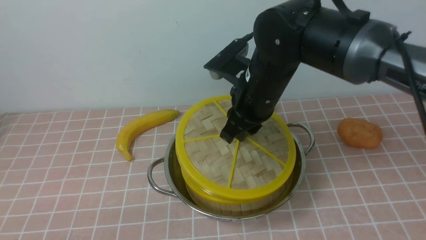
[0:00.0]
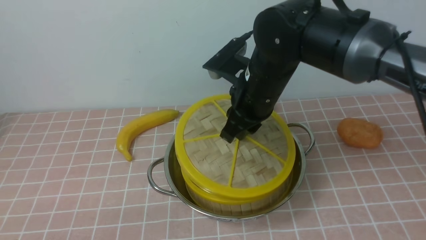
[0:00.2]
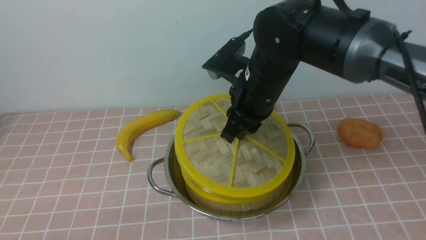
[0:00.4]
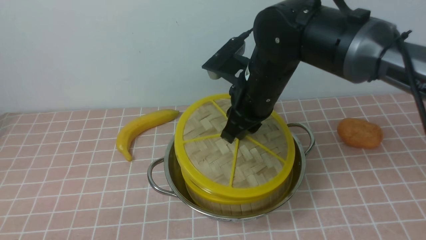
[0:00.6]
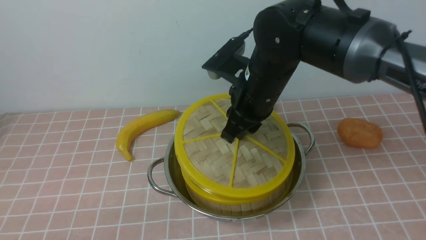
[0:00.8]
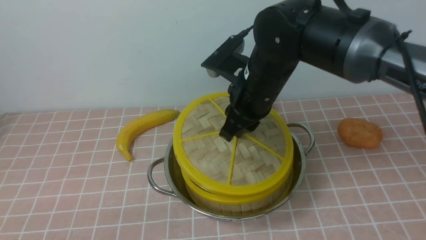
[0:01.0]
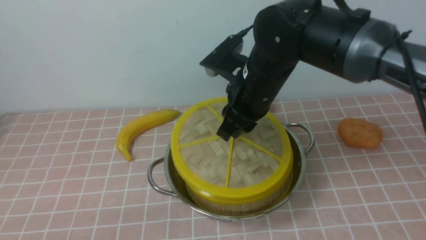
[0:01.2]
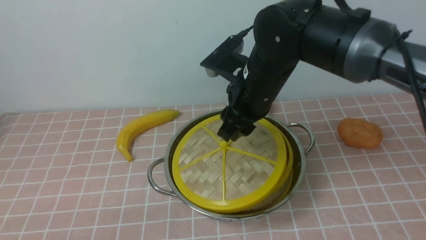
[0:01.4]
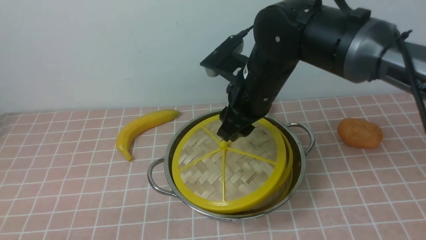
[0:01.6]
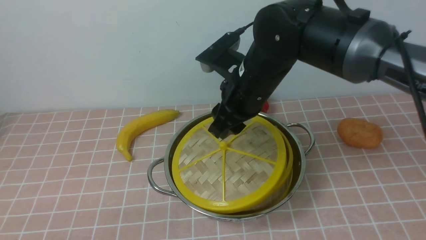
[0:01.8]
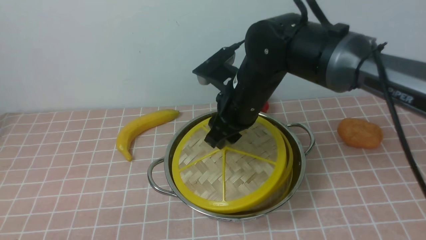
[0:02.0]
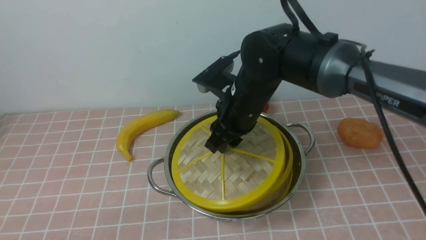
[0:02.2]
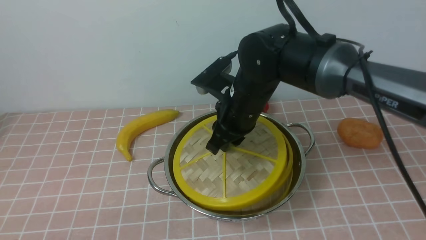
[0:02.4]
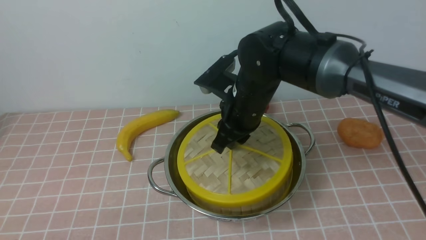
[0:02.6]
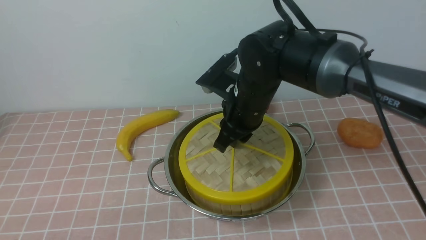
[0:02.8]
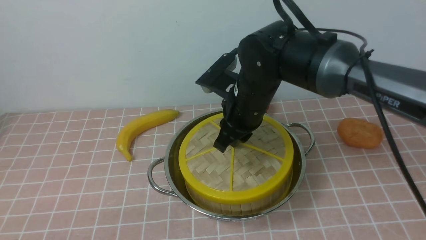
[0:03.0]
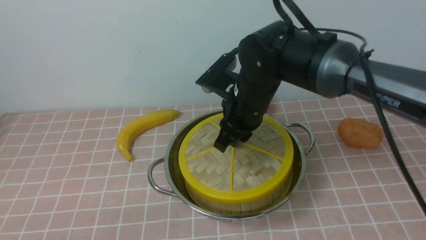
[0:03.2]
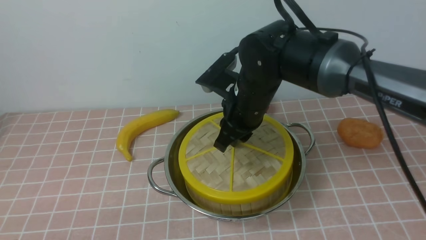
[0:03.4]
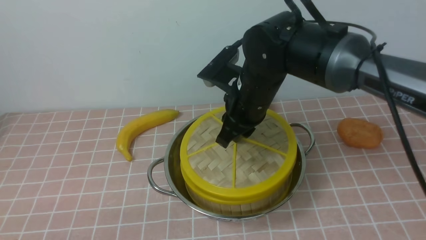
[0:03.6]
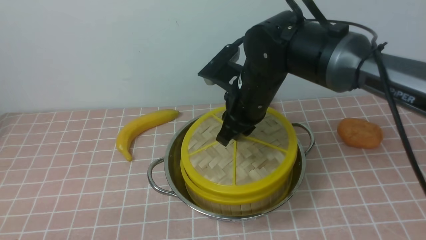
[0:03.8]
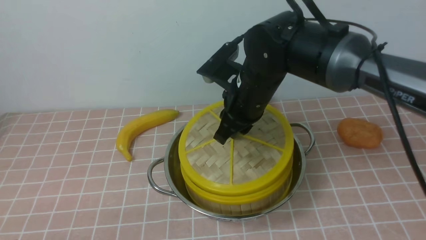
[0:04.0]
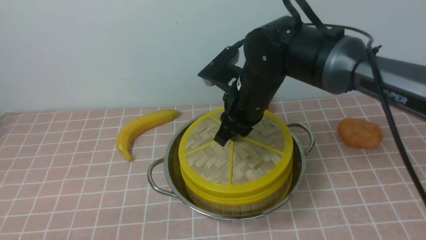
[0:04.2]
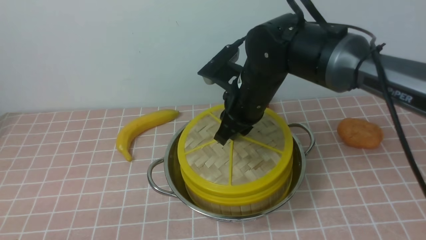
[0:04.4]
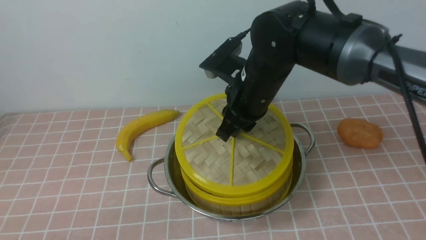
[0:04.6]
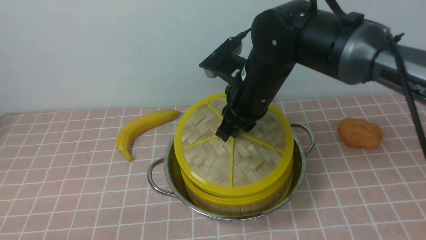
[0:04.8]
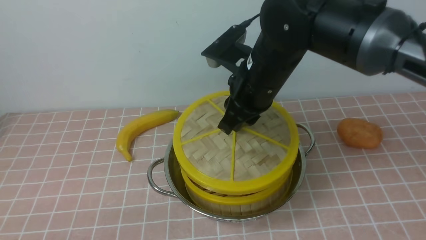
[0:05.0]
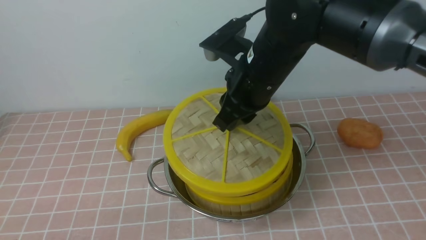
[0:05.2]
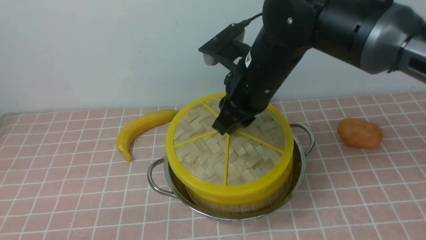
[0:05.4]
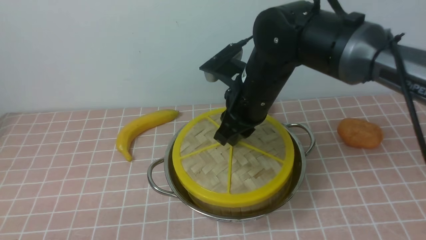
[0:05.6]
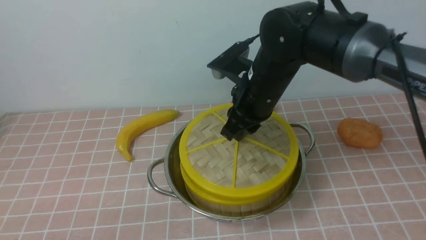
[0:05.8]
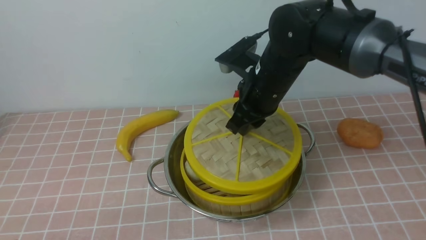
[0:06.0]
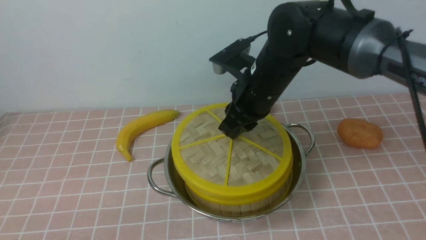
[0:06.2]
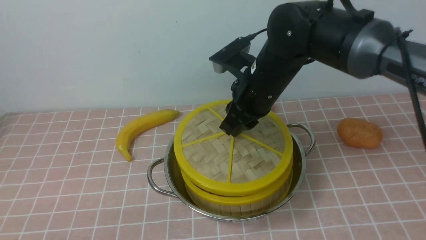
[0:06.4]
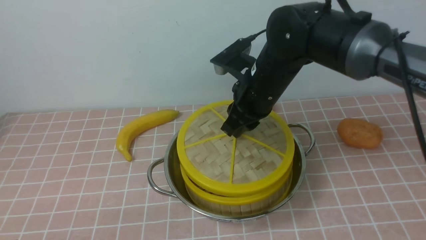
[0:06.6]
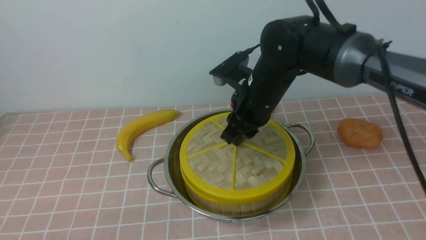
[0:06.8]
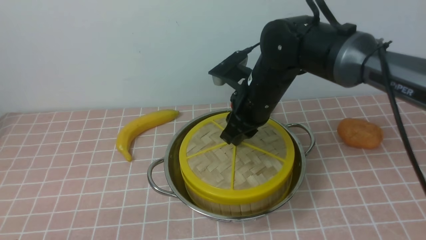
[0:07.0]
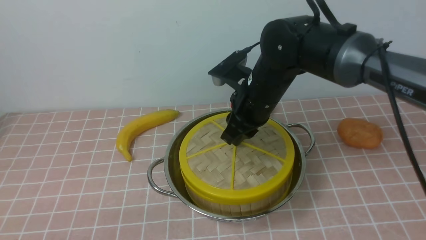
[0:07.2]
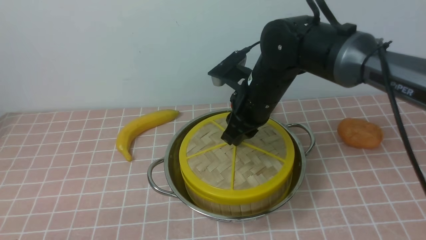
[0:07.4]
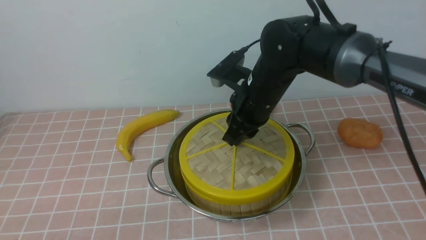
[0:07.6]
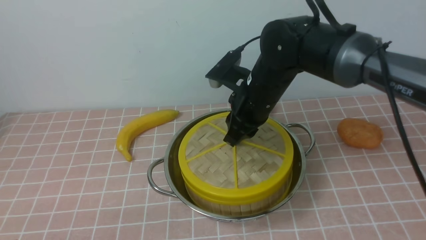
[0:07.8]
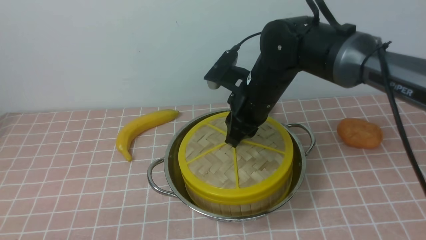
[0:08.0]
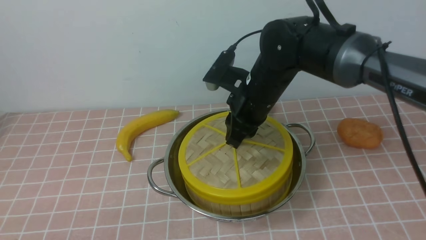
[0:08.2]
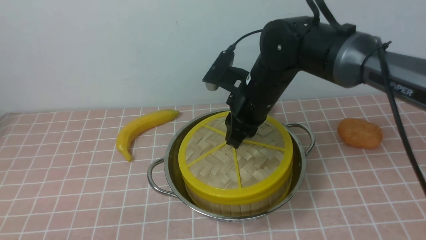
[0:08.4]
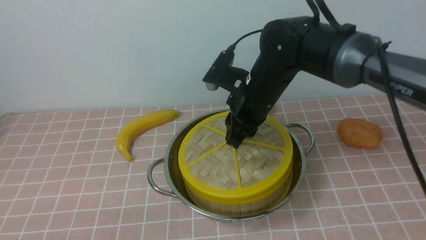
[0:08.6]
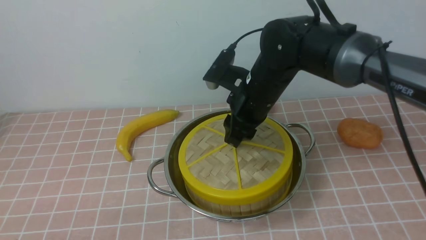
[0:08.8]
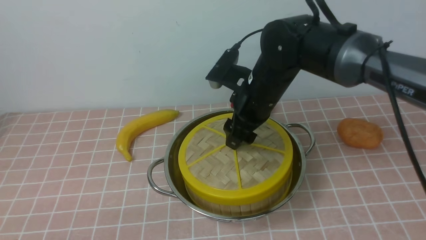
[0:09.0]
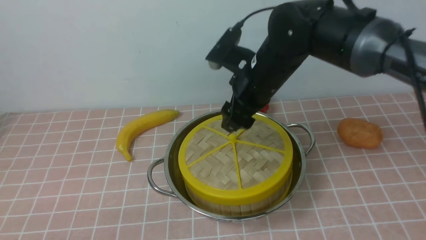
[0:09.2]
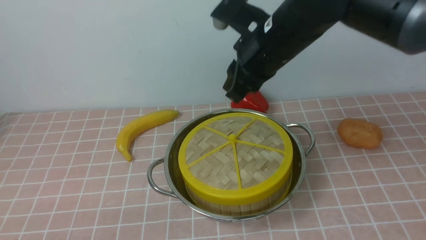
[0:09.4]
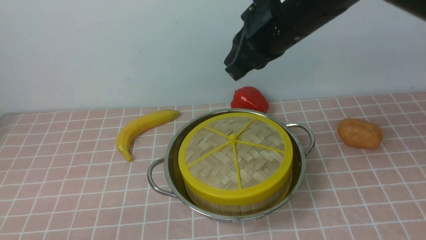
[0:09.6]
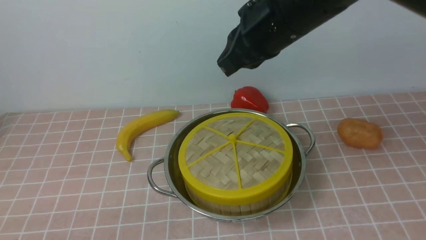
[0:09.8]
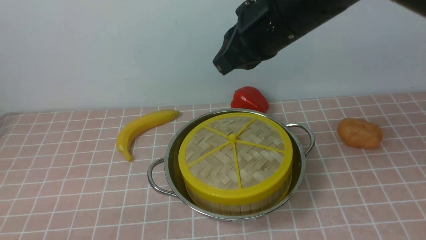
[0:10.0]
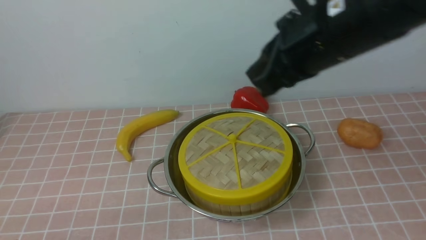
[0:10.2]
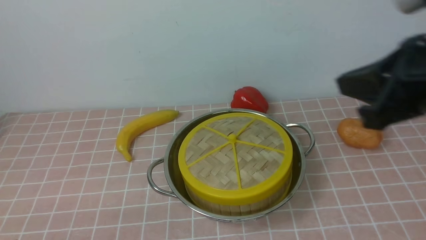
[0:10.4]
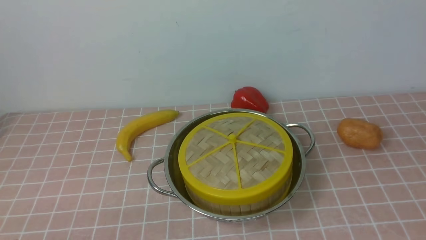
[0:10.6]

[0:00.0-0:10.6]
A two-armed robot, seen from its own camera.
Task of the whole recording: place the steamer in the pot on the pink tablecloth, and put the lid on the steamer.
Step, 0:00.0 to 0:09.2: use the right arm to place the steamer lid on the steamer.
0:00.0 to 0:01.6: The right gripper opens up.
0:01.6 to 0:03.0: The right gripper closes up.
0:03.0 to 0:04.6: There are only small adjustments of the grippers.
0:04.6 to 0:07.6: The grippers move only a little.
0:07.6 to 0:09.0: The right gripper opens up.
0:09.0 to 0:10.6: The right gripper moves backward and to the right, some 35 cm, and closes.

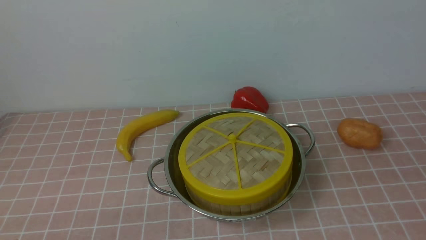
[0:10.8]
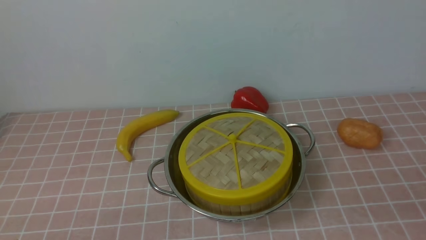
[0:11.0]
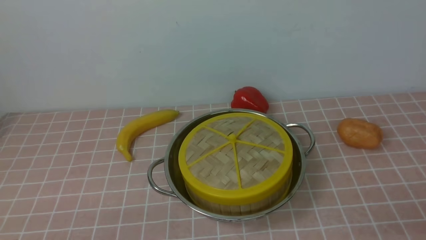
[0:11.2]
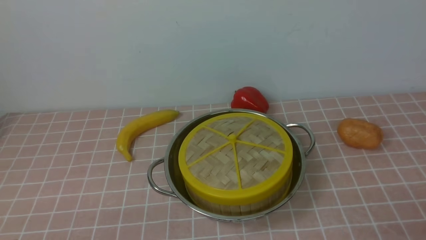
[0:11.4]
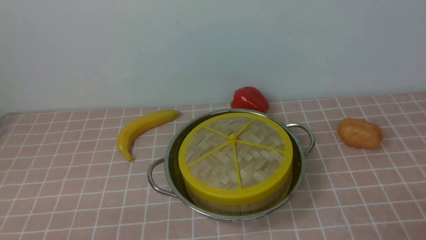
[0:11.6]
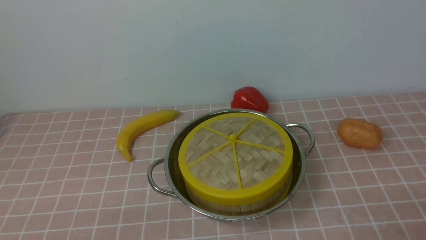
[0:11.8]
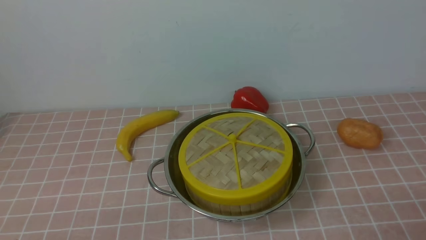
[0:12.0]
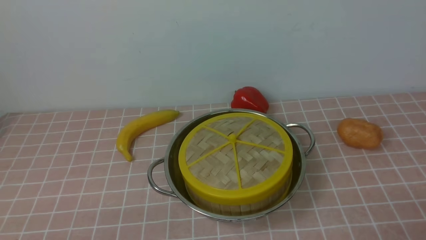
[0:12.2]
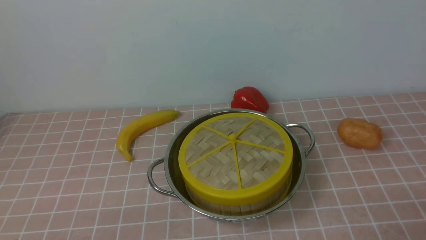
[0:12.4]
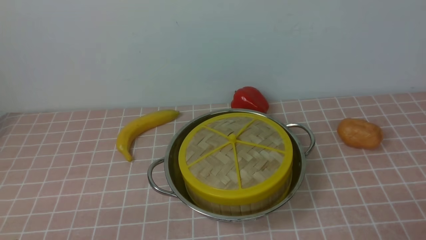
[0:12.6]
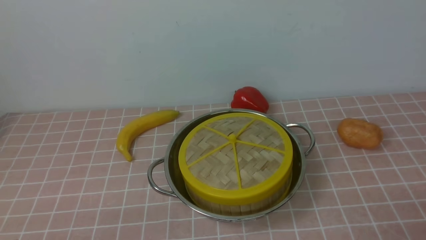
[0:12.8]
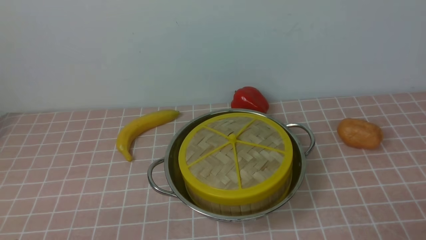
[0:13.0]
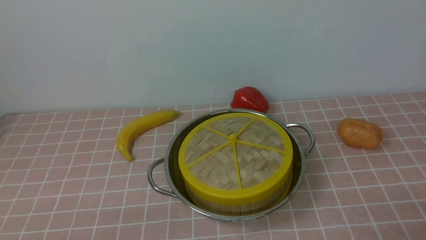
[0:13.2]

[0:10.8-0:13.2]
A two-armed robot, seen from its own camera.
Task of the whole recording: place the steamer in the pot on the pink tablecloth, and put the lid on the steamer.
0:12.0 to 0:13.2: Both grippers stay put.

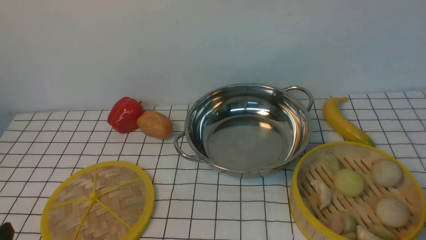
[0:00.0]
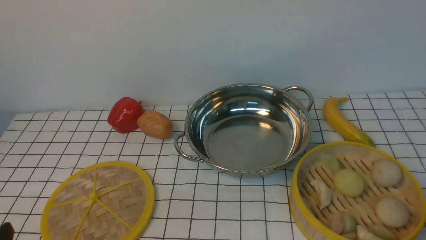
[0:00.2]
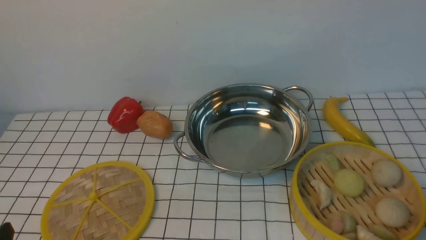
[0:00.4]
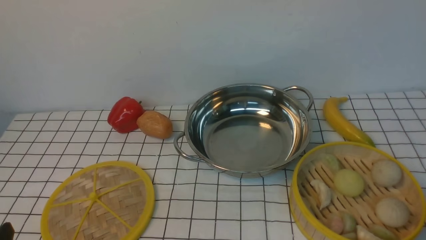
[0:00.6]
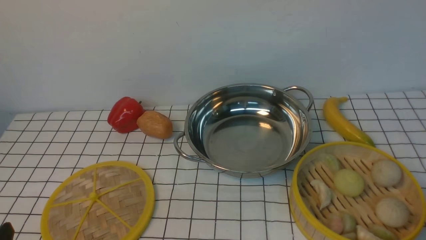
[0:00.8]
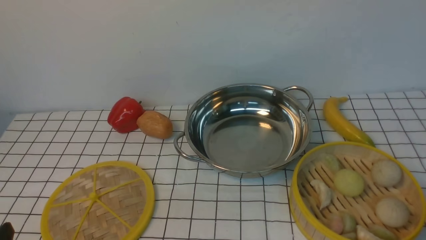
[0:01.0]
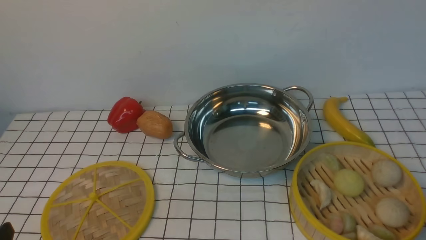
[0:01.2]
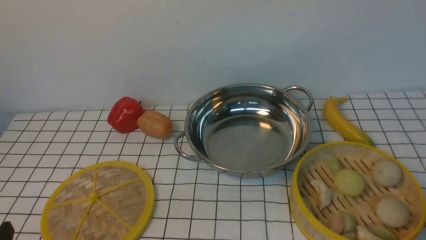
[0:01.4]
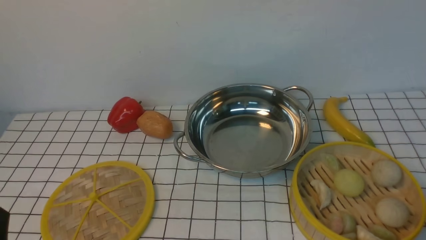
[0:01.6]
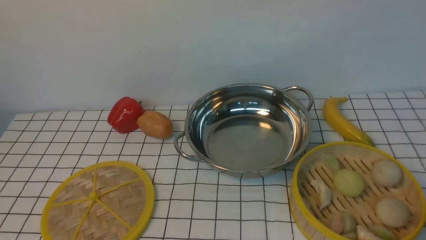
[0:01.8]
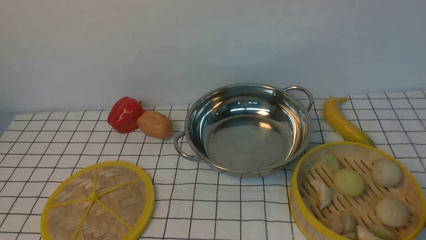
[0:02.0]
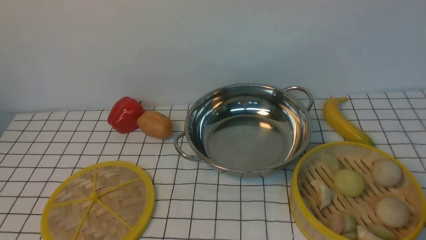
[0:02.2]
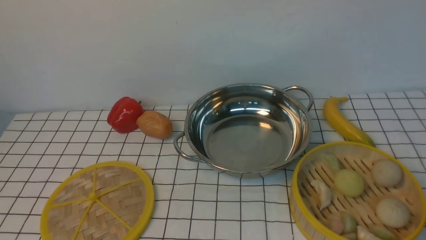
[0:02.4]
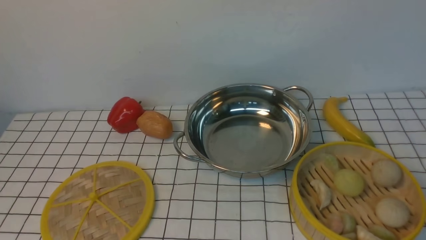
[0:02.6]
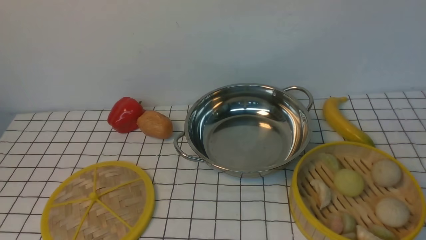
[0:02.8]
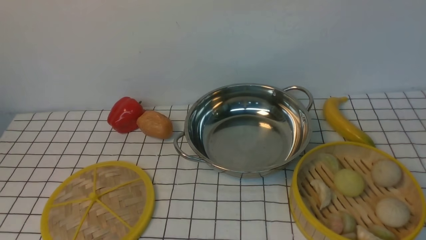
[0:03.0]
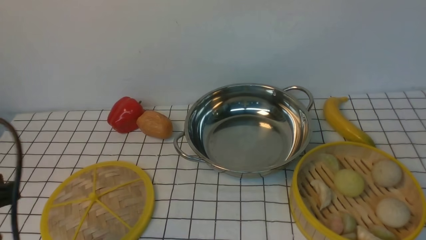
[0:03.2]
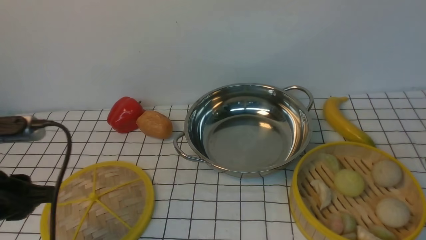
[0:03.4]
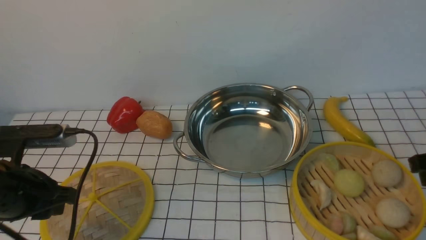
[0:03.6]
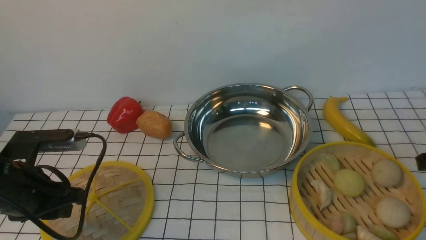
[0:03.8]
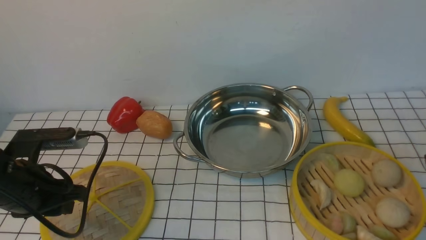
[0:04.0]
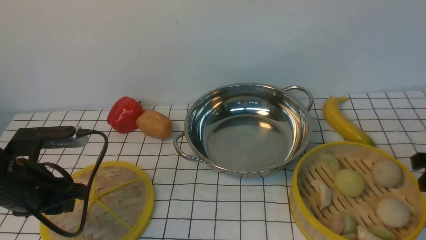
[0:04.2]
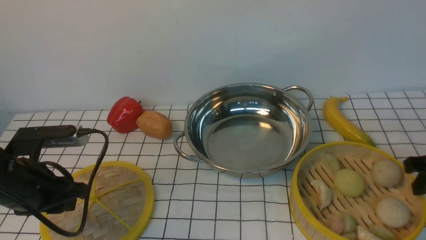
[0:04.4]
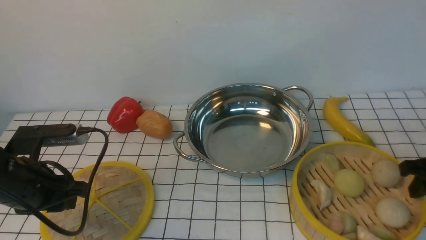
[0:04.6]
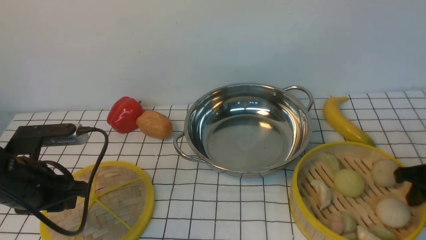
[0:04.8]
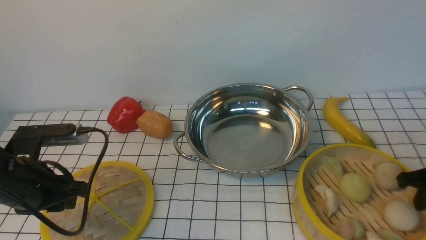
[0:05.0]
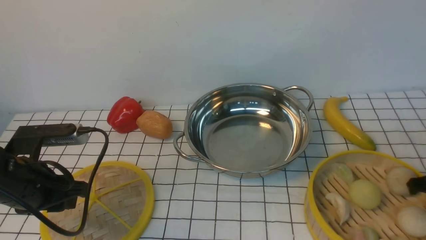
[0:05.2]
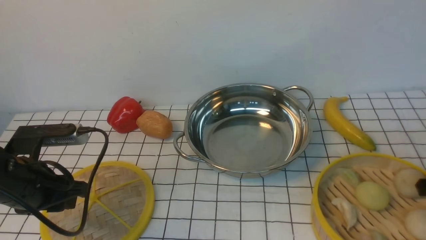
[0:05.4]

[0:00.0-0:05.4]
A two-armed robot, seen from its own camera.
Task of the whole recording: place the steamer in the pot on the white tablecloth, and put the lid on the steamer.
0:02.8 to 0:04.0: The left gripper travels forward and downward by approximately 20 cm.
0:04.0 to 0:05.4: The right gripper is displaced downward by about 5 cm, and closes up.
